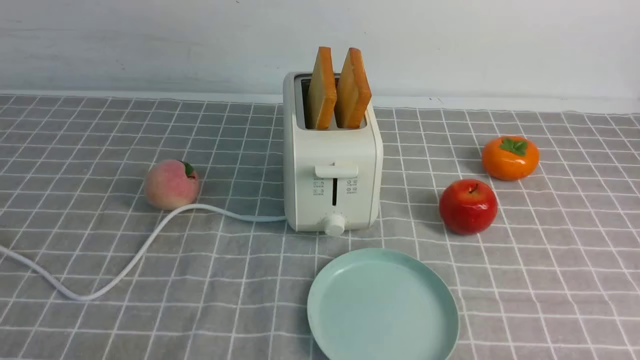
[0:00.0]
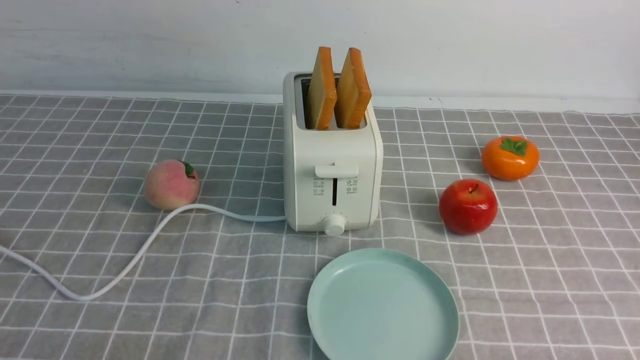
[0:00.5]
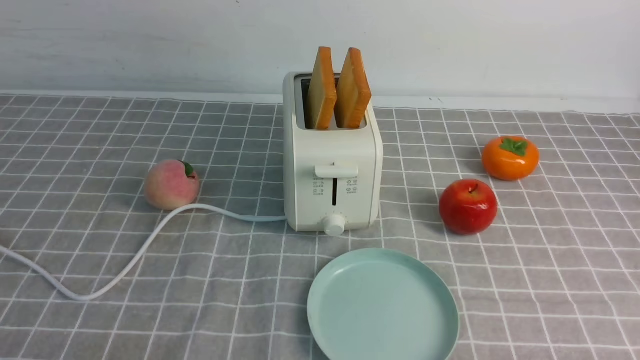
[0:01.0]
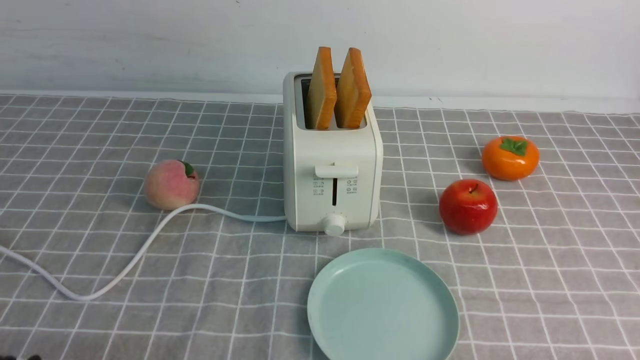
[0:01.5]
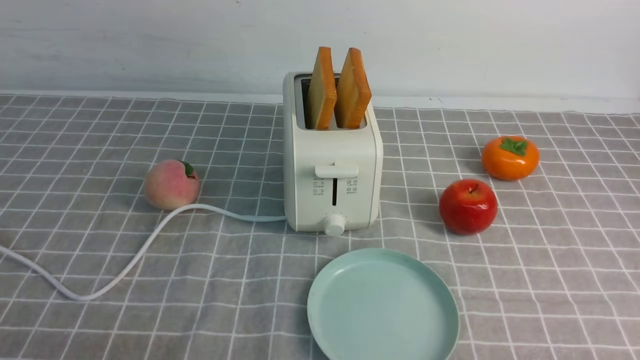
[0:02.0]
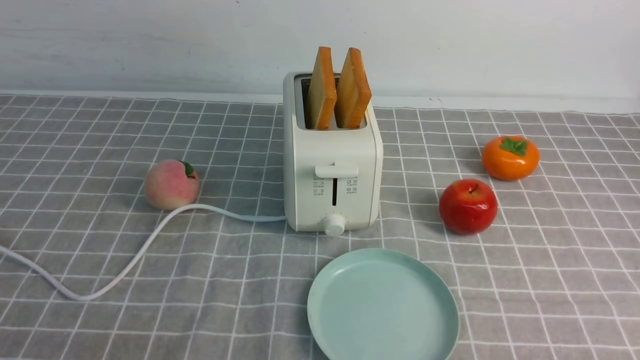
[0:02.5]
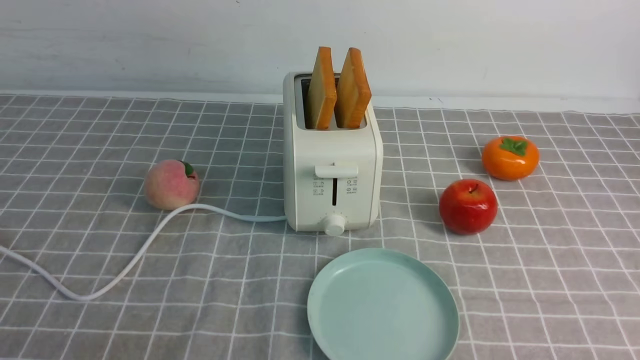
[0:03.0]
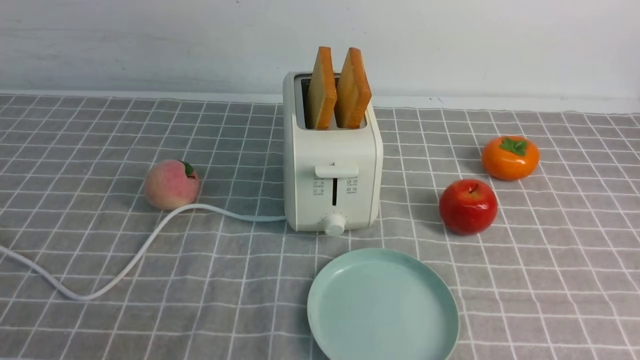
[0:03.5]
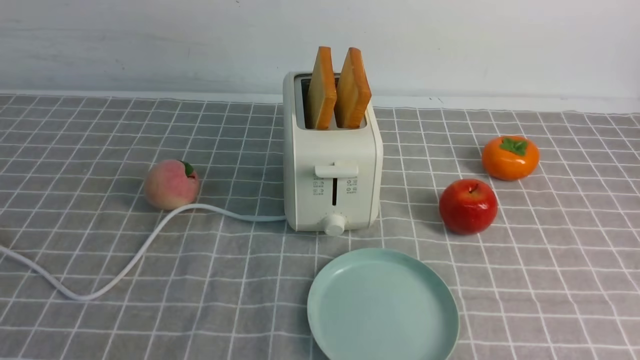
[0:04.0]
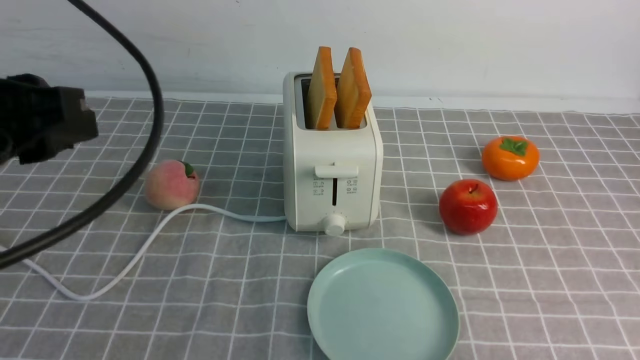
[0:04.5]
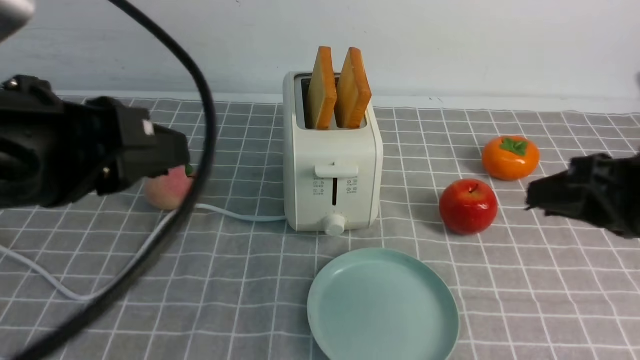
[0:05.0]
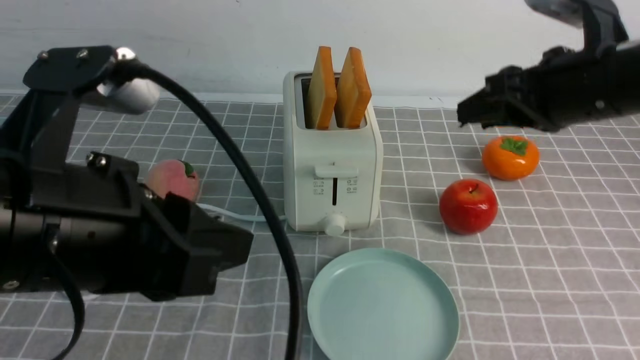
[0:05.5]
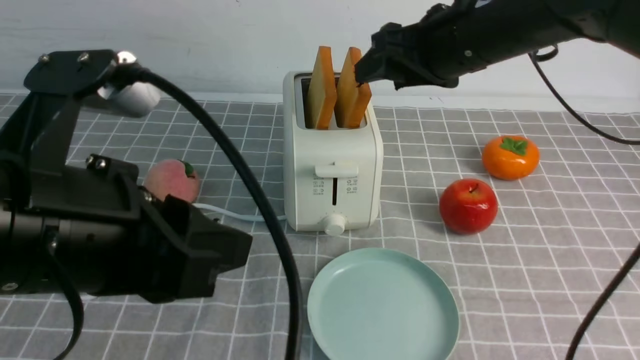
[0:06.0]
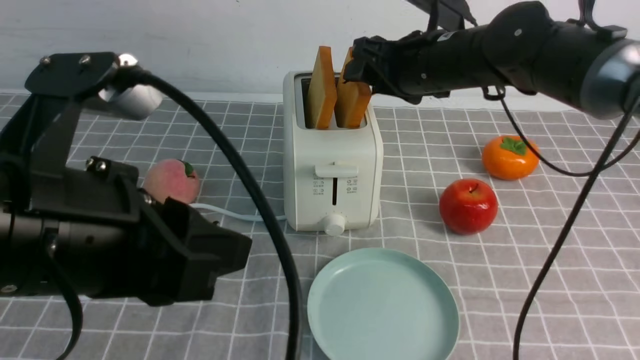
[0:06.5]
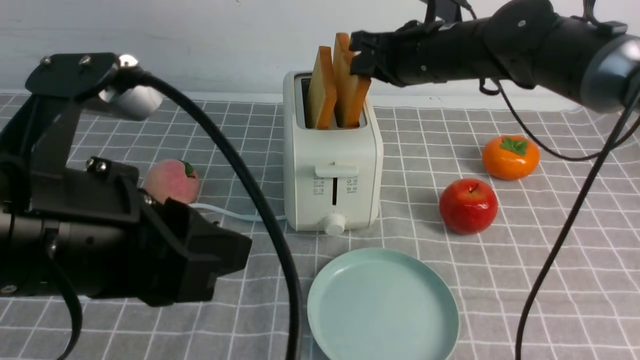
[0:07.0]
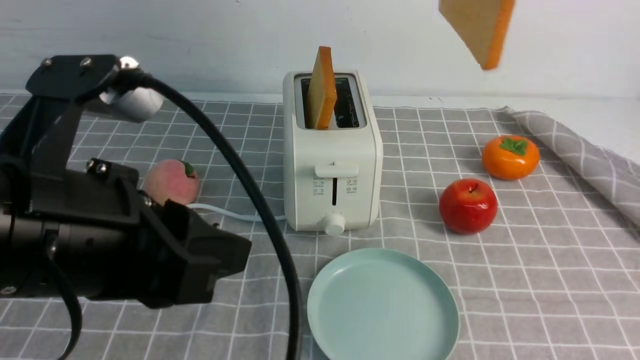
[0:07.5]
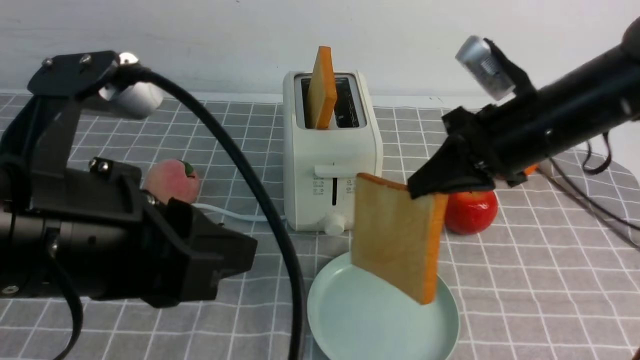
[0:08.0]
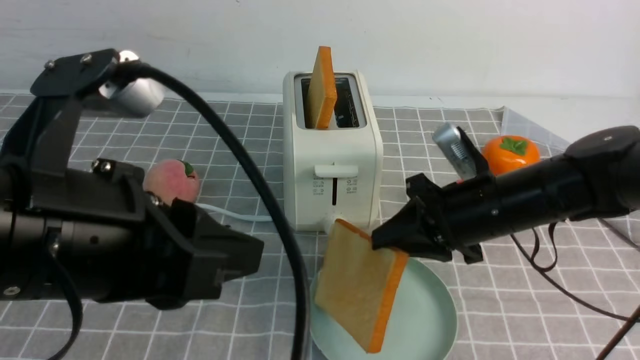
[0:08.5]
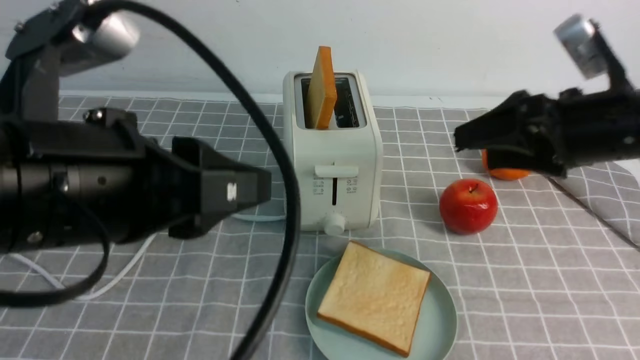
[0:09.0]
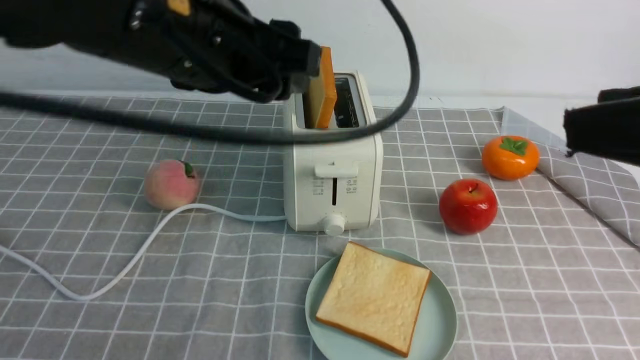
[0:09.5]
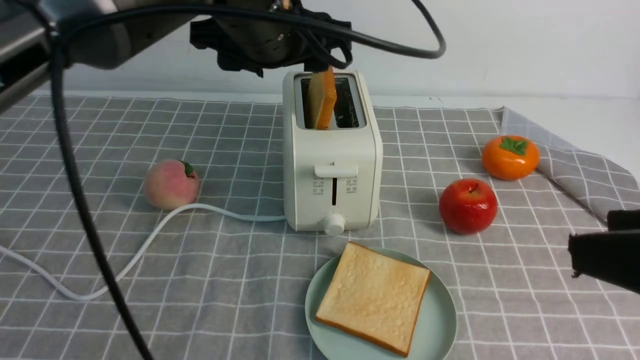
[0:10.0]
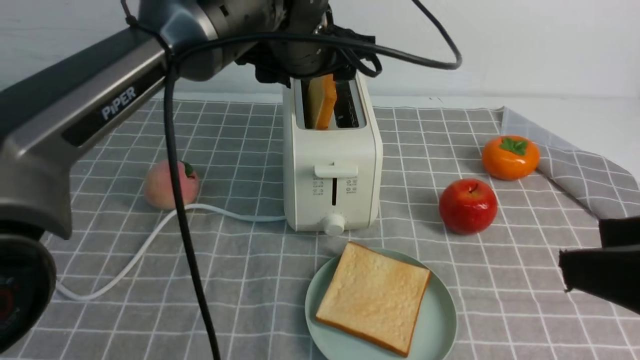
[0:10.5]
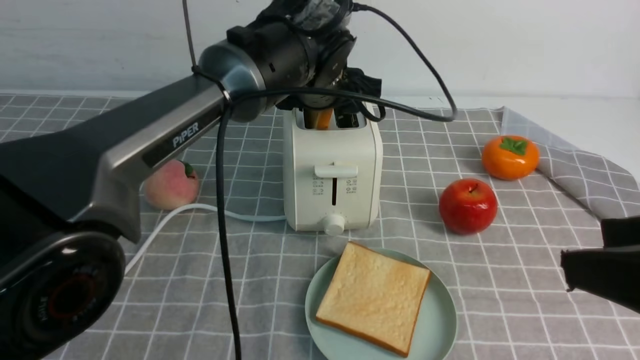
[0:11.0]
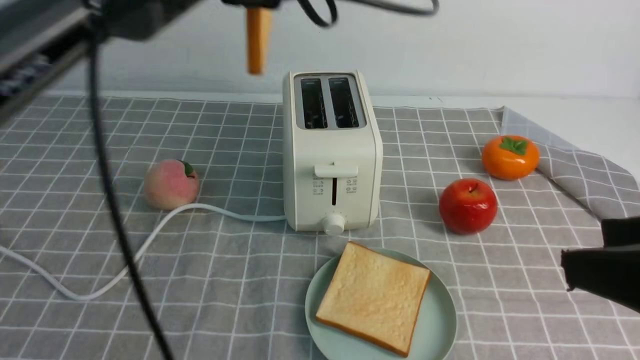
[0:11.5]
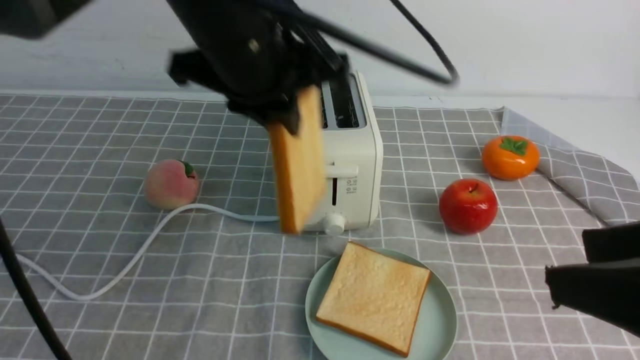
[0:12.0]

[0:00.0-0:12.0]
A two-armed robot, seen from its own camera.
Task of the whole recording: take toasted bread from bread machine on grey coffee table place on plate.
Step, 0:00.0 to 0:07.0: use the right arm to take out a slice of bread.
Step, 0:07.5 to 0:09.0: use the right arm to put a slice of bread into the plate.
Step, 0:09.5 to 0:11.0: use the left arm to take out a slice of bread.
0:04.0 to 0:06.0: The right gripper shifts approximately 30 cm forward and to the left, and opens up; the left gripper shifts some 10 cm to the right and downward.
0:06.0 to 0:08.0: The right gripper moves up and down over some 15 cm, changing direction 2 times, and closes its fingers.
0:08.0 to 0:10.0: The left gripper is displaced forward and to the right by approximately 25 cm, and opens up; the right gripper is displaced backward by roughly 20 cm, and opens its fingers.
0:10.0 to 0:12.0: The left gripper closes its fingers.

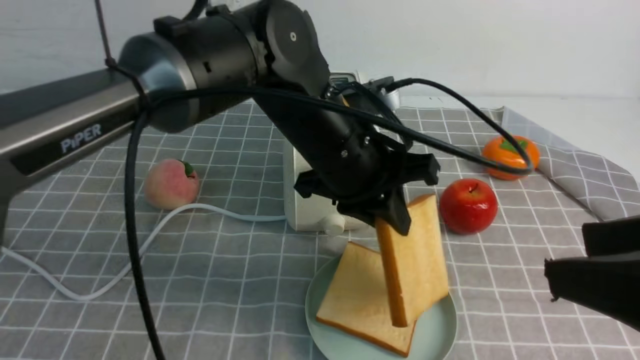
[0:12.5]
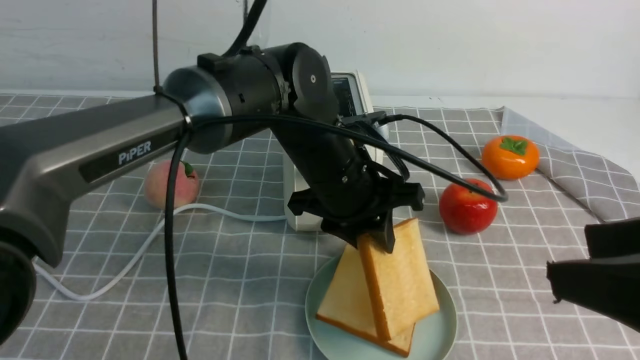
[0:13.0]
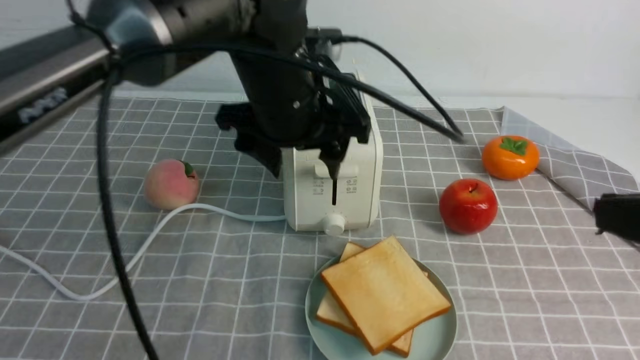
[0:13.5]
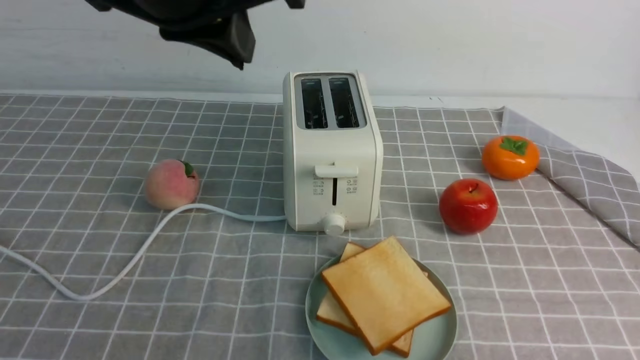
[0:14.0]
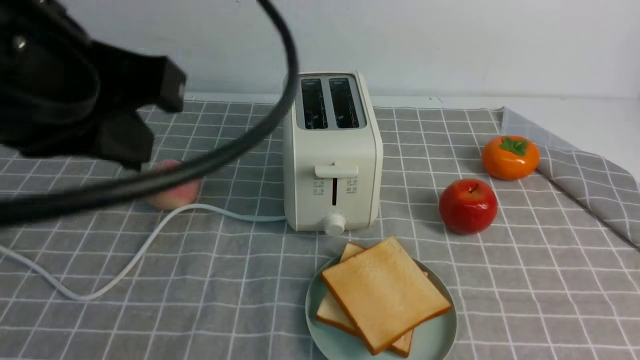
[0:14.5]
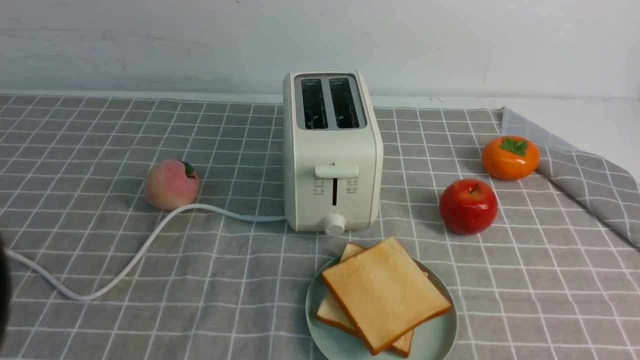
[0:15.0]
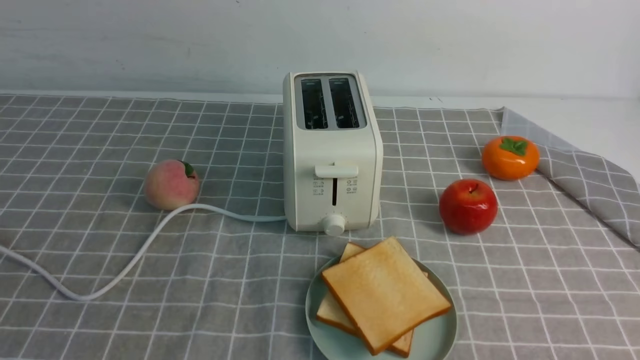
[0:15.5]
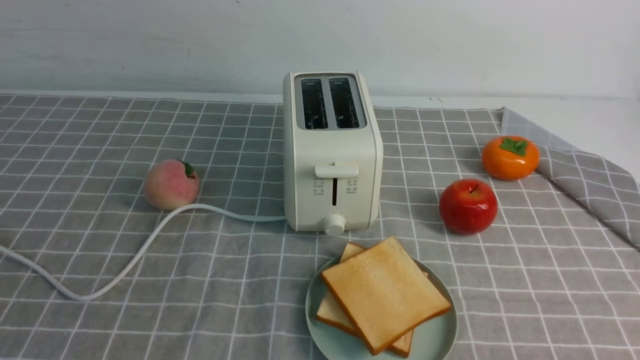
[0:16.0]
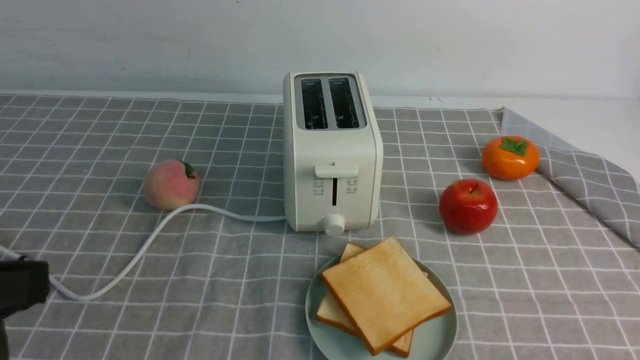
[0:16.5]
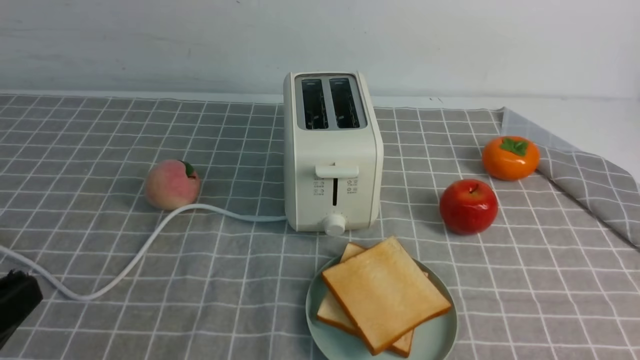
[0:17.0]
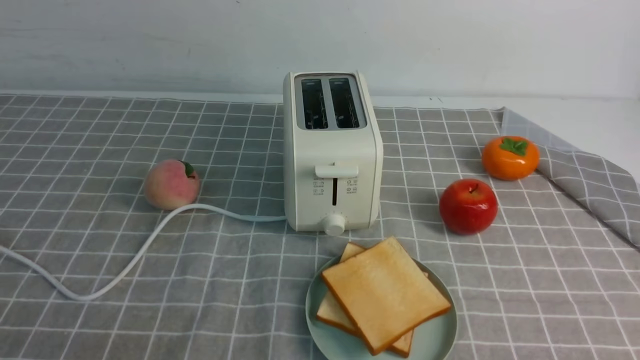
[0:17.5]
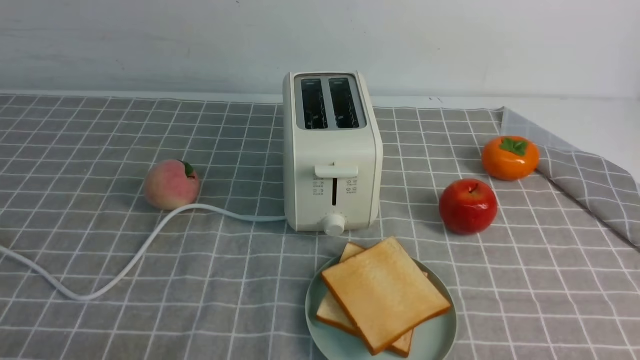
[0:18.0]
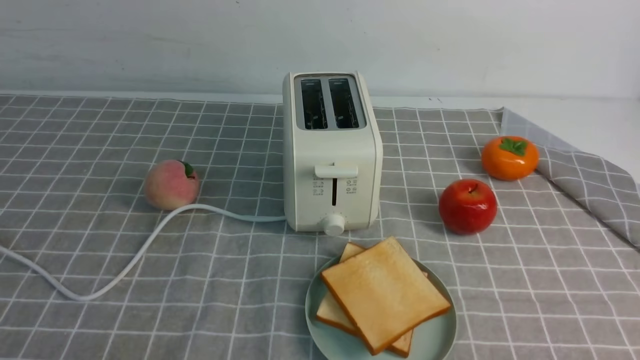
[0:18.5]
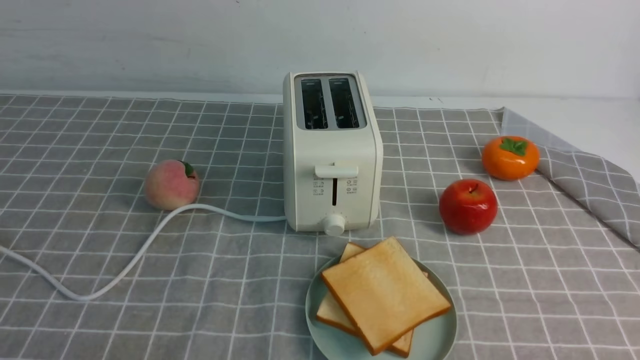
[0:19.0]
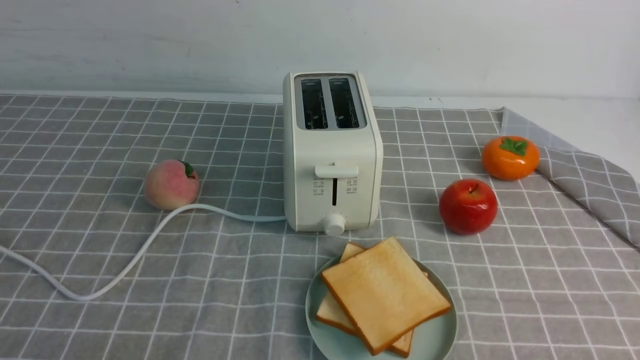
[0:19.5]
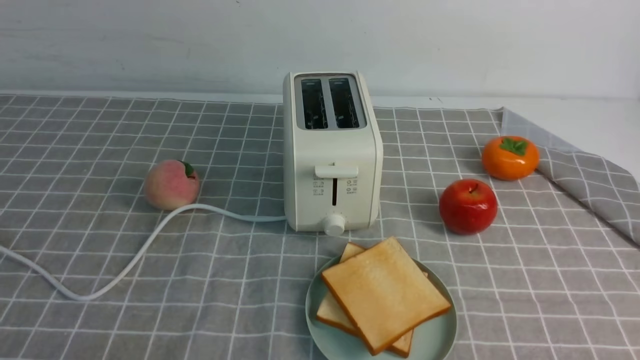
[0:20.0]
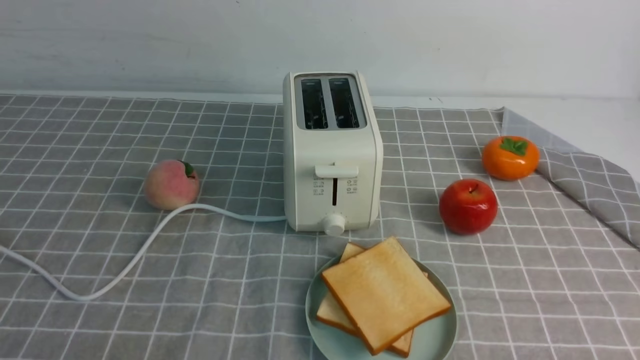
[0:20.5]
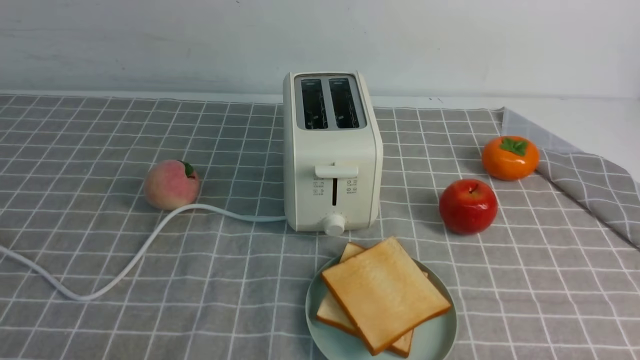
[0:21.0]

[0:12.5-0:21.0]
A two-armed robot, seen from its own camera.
Task of the whole recording: take toasted bread from bread machine on grey coffee table place on plate.
Step, 0:12.5 to 0:13.5: use the left arm to put a slice of bread into the empty plate.
0:12.5 to 0:14.5: The left gripper moves to the left, backward and upward, some 25 cm, and opens, then closes once more; the right gripper travels downward, to the right and backward by roughly 10 cm, and closes.
0:14.5 to 0:16.5: The left gripper is displaced backward, downward and to the left by approximately 15 cm.
0:16.5 to 0:19.0: The left gripper moves downward, approximately 20 cm.
